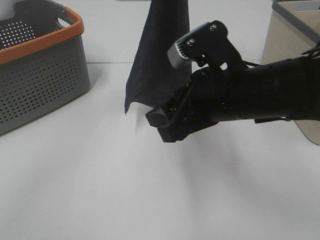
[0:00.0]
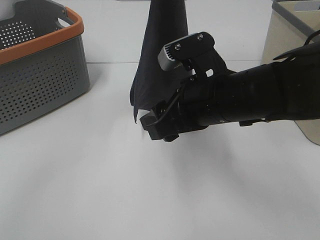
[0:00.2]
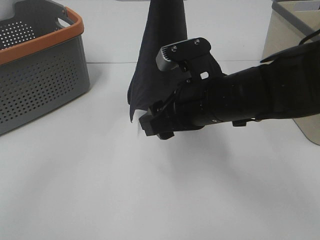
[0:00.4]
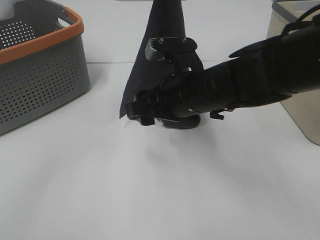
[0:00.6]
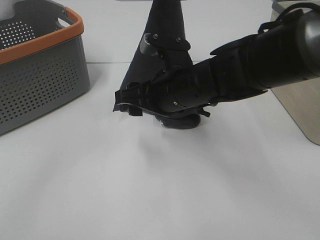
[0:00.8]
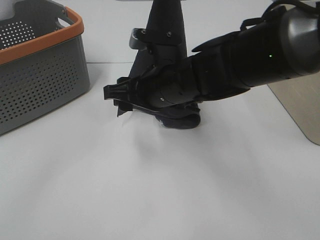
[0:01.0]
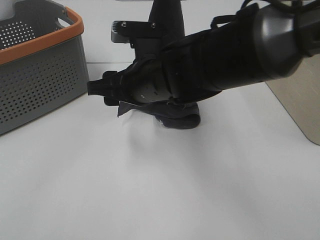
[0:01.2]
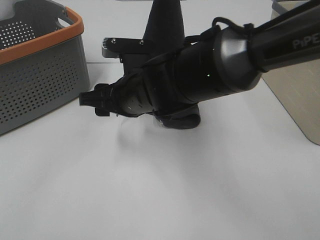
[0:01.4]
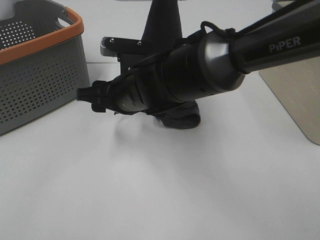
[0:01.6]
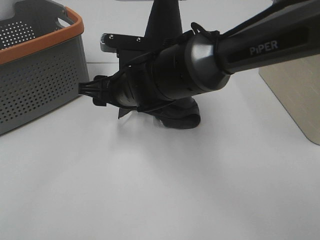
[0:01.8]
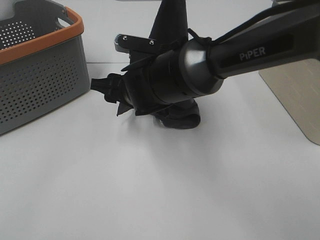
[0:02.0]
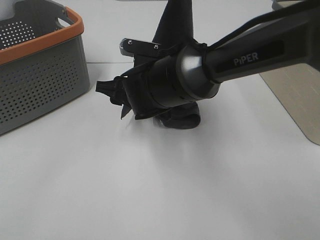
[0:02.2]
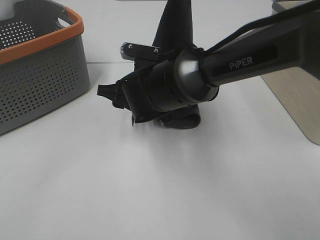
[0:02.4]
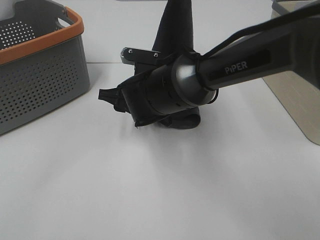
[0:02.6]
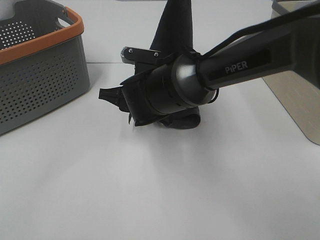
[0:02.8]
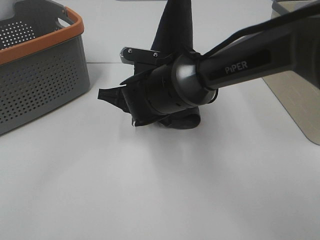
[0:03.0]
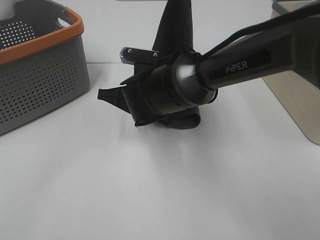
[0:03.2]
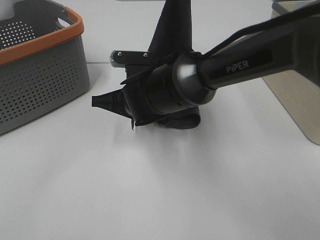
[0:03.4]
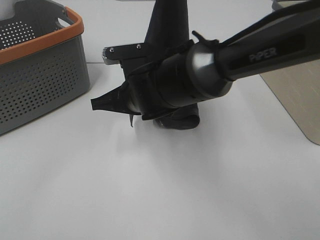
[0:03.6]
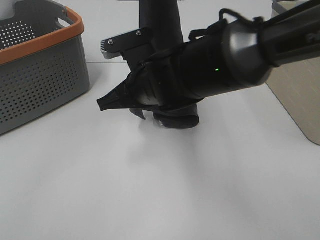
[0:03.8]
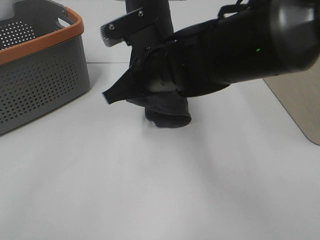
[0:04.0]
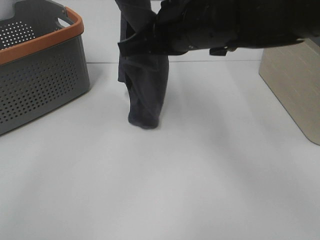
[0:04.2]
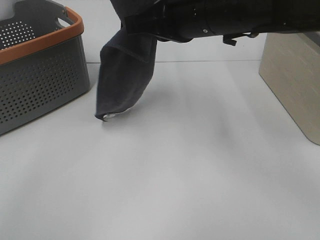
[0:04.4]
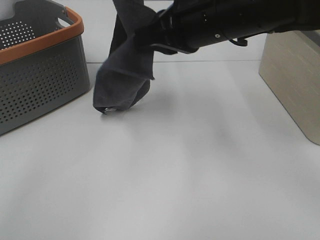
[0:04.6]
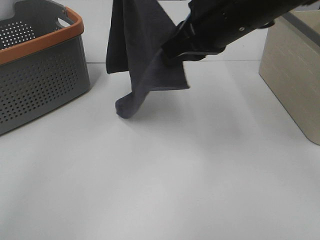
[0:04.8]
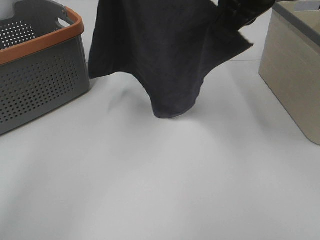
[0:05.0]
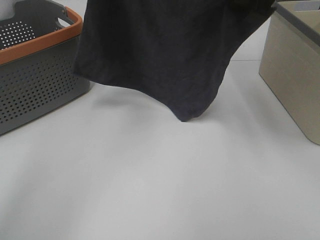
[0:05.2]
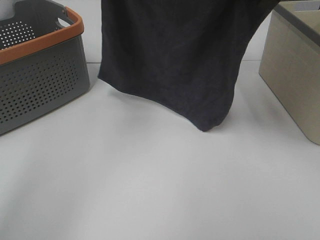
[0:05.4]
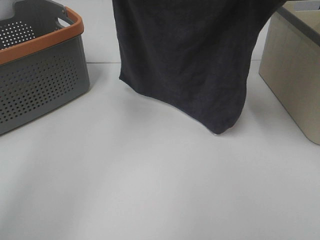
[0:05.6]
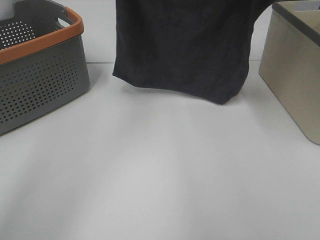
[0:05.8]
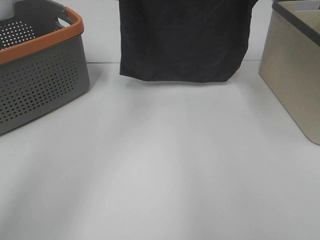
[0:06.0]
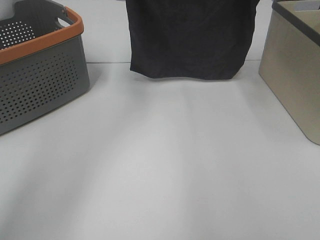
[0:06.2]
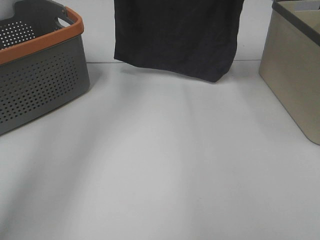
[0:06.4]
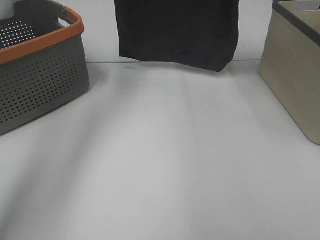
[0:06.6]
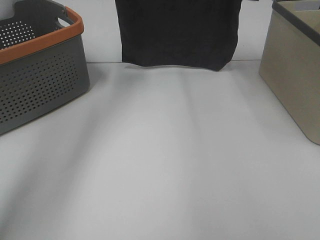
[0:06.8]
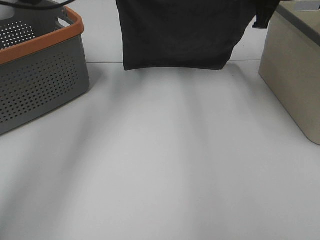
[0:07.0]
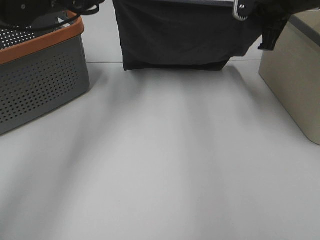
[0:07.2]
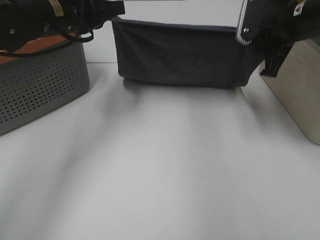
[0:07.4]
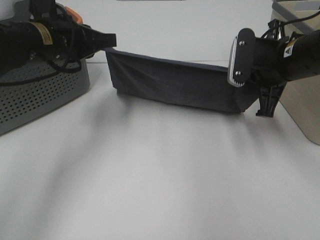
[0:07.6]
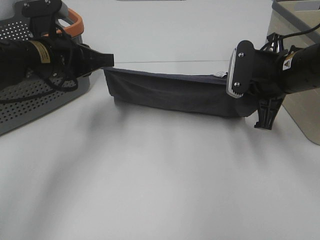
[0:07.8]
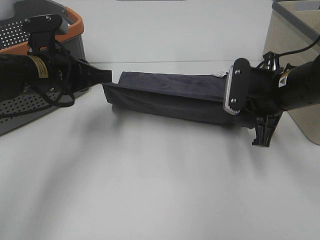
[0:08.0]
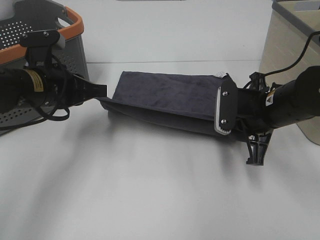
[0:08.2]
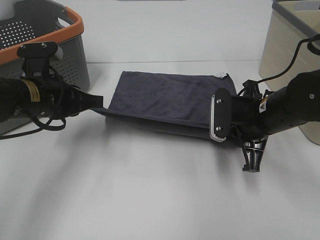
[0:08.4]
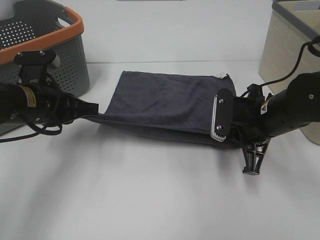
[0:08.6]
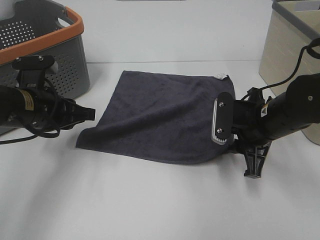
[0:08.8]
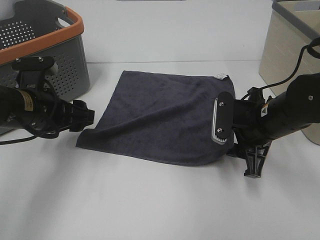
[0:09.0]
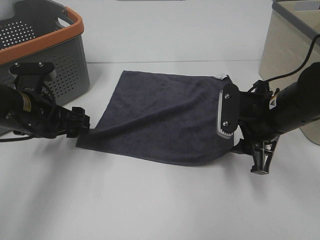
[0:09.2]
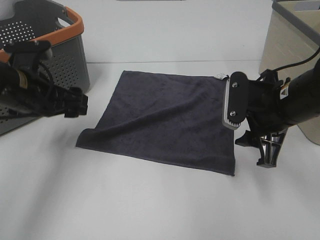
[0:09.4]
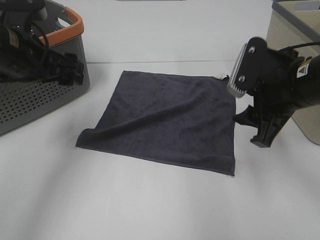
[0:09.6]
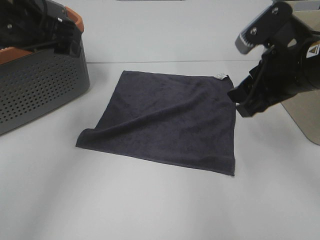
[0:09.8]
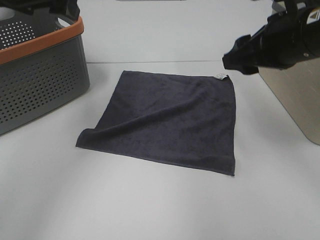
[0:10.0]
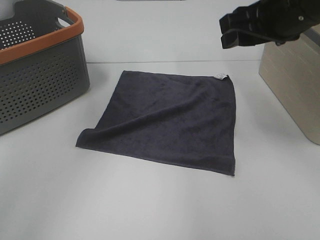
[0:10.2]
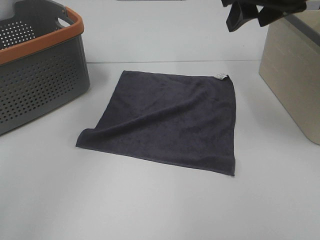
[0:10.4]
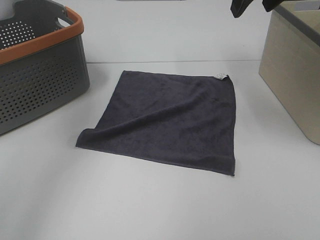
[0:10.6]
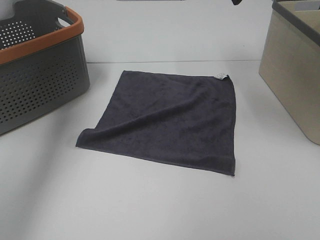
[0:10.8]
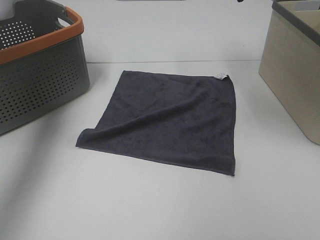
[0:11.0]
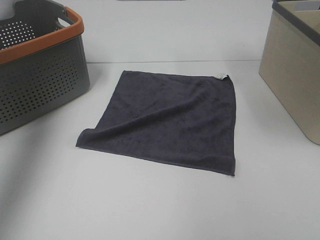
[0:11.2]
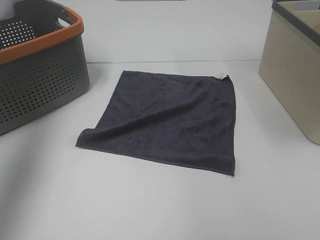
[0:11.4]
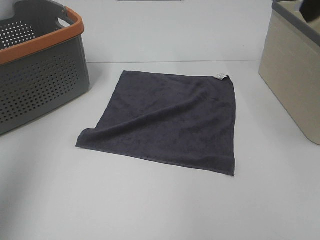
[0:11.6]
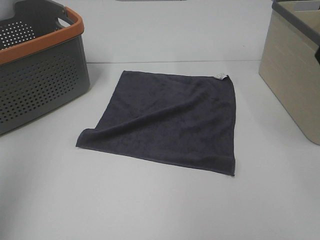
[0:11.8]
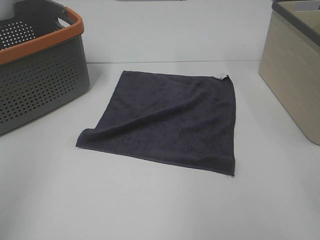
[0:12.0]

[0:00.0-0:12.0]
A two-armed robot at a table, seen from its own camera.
Task of the whole recording: Remove the towel and place it.
Step, 0.0 to 2.0 s: Right hand: grab a corner of the grey towel and straighten it.
Step, 2.2 to 4.6 s: Left hand: spread the grey towel flat on the table.
Step, 2.2 to 5.0 s: Right hand: spread the grey towel flat on the table.
0.0 to 1.6 s: The right gripper moves to the left, forward and downward, roughly 15 cm.
1.6 to 3.0 s: The right gripper closes up.
3.0 to 4.4 s: The left gripper goes some 15 cm to the left, upward and forward; the right gripper shifts roughly 20 cm upward and to the right, and closes.
4.4 to 6.0 s: The right gripper travels to the right, forward and upward by about 20 cm. The left gripper heads forward, covering about 5 cm.
6.0 to 7.6 s: The two grippers go about 20 cm downward and backward.
7.6 to 9.0 s: The left gripper heads downward and backward, covering roughly 10 cm, and opens its fingers, while the right gripper heads downward, covering approximately 10 cm, and opens.
9.0 to 10.4 s: The grippers both shift upward by about 25 cm.
10.4 to 12.0 s: The right gripper heads backward and to the right, covering approximately 20 cm. Meanwhile the left gripper heads backward and to the left, covering approximately 30 cm.

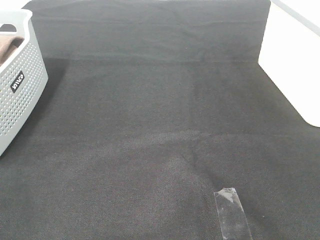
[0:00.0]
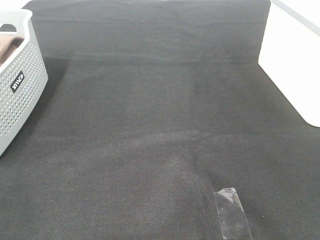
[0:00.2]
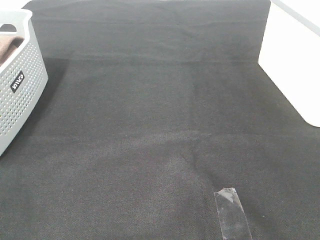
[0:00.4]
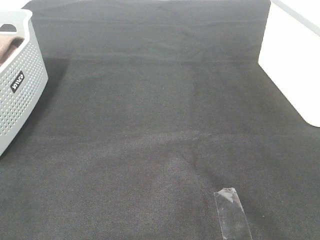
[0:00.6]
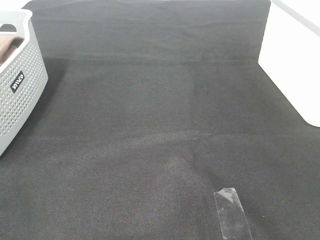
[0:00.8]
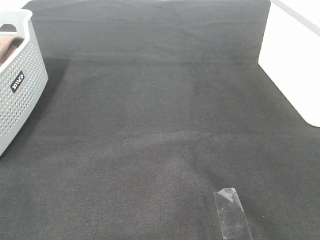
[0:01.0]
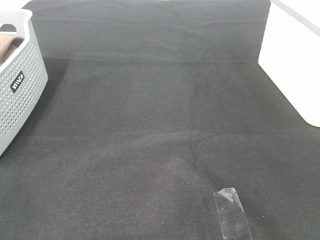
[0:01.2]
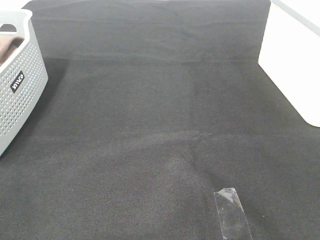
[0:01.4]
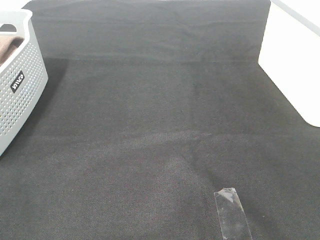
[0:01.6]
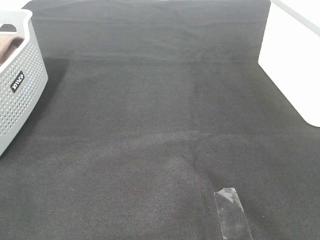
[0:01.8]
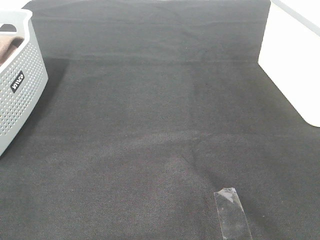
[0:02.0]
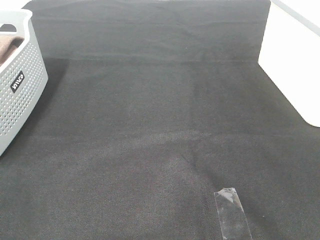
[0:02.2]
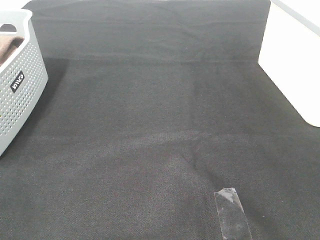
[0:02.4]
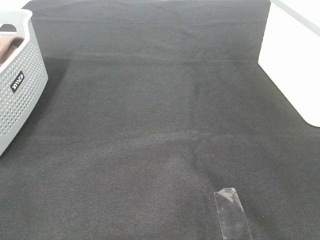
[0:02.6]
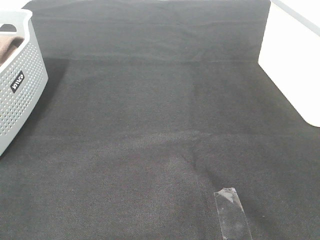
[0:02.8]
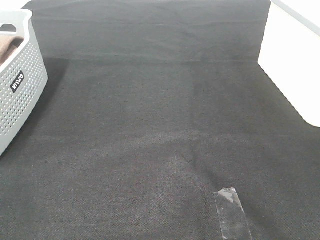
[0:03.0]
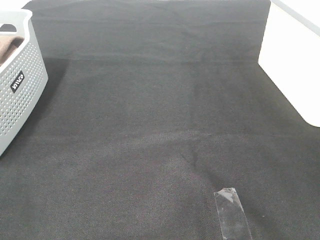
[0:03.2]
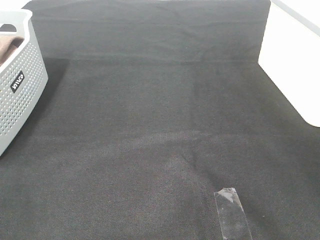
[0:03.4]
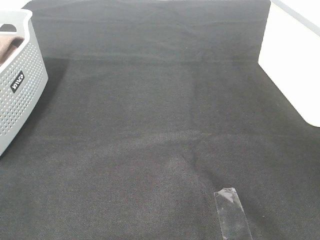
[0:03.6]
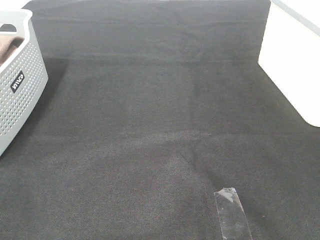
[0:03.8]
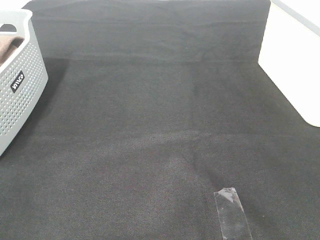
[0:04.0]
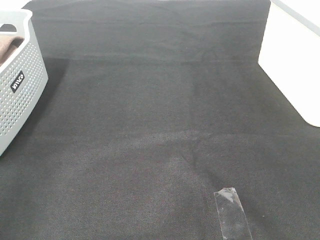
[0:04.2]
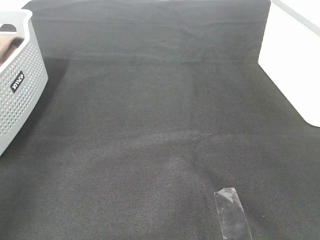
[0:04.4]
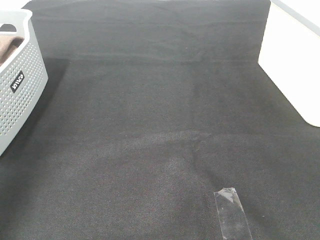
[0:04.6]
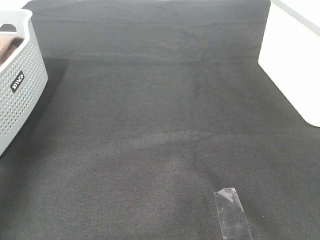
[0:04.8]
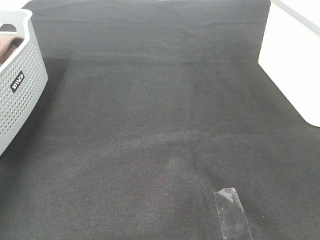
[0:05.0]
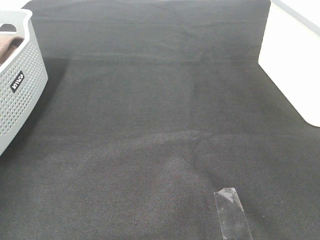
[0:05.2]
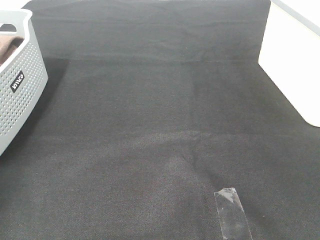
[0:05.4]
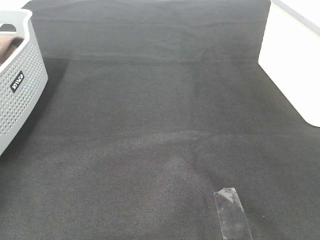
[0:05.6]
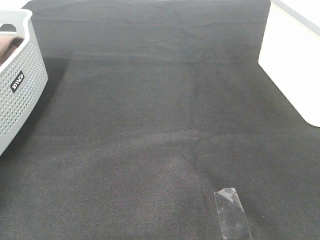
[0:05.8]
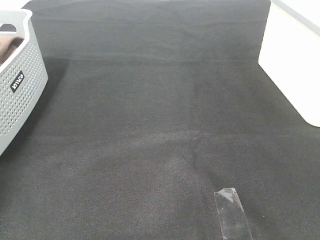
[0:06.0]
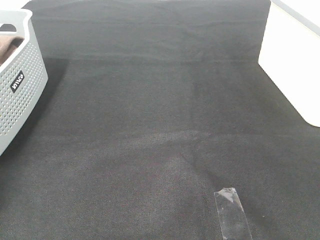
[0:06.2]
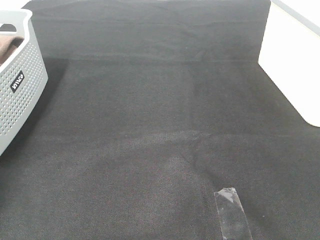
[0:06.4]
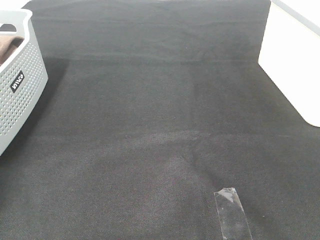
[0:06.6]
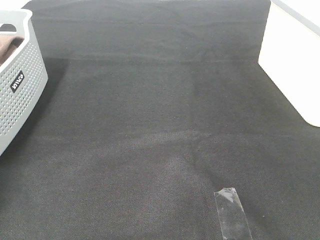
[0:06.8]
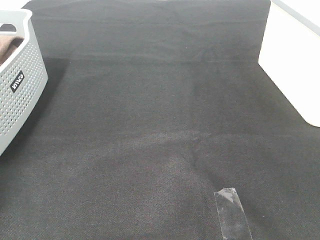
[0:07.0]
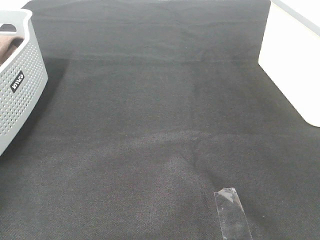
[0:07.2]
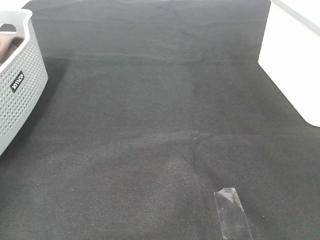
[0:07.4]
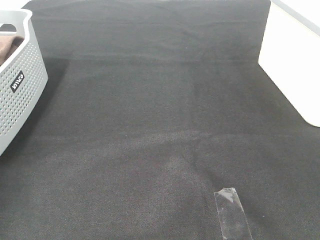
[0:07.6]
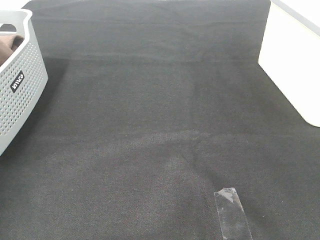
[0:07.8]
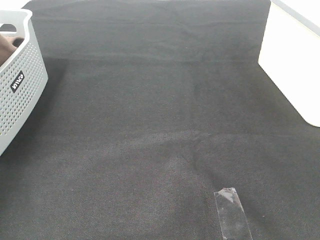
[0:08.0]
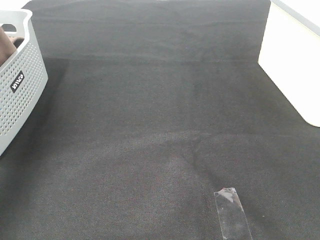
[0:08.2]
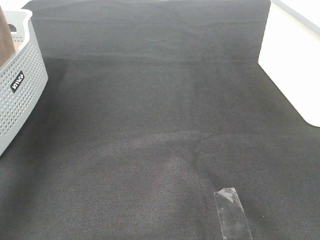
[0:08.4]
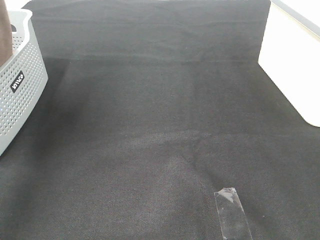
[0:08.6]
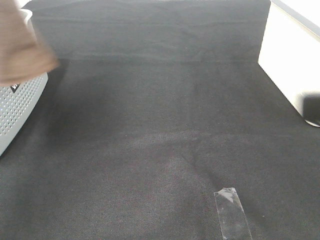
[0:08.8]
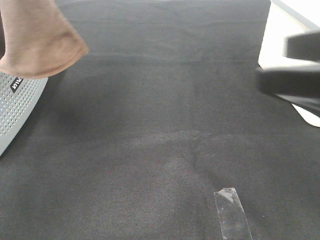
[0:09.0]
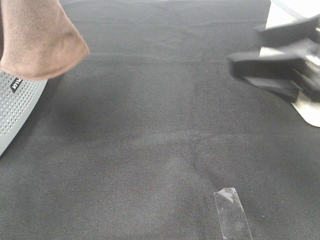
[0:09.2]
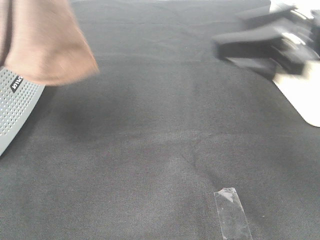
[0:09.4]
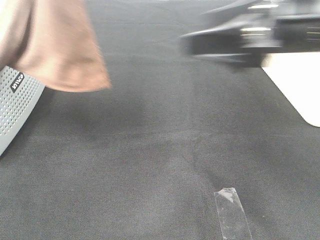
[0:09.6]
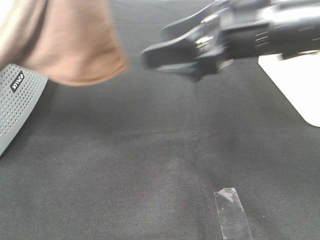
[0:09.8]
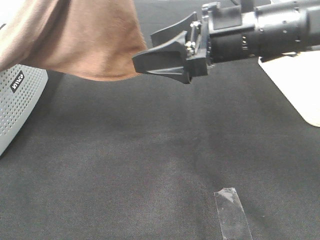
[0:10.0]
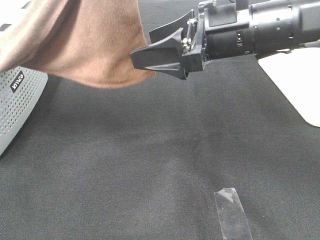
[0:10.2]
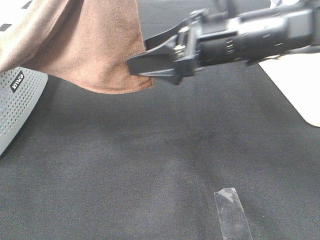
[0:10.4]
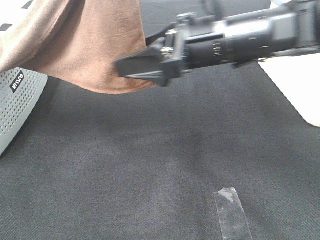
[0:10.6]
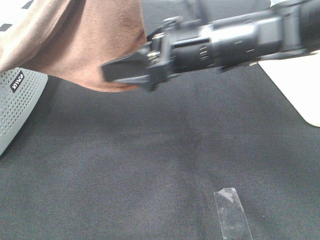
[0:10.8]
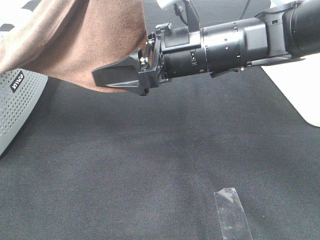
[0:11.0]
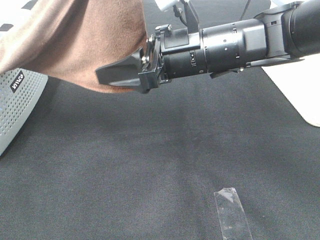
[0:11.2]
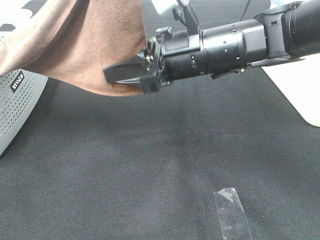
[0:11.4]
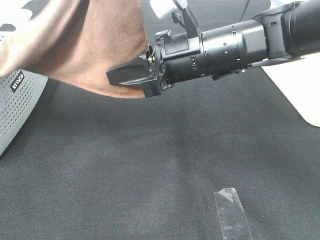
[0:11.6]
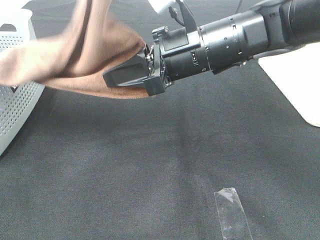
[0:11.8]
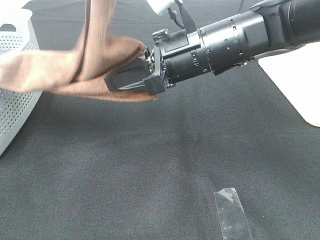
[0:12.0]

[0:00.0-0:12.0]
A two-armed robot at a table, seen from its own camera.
Task of the whole recording: Remove the towel and place it.
Step, 8.2 to 11.4 s: Right hand: grab a corner of the brown towel and straighten it.
0.0 to 3.0 s: Both grippers stay put.
4.4 to 6.0 s: The left gripper goes approximately 35 cm forward and downward.
7.6 to 9.0 s: The right gripper heads forward and to the left, covering about 15 cm, while the left gripper goes about 25 cm to the right, upward and backward.
9.0 to 10.4 s: The right gripper shifts approximately 20 cm forward, to the left and downward, while the left gripper moves to the right, about 10 cm.
10.4 to 12.0 s: The right gripper closes up.
